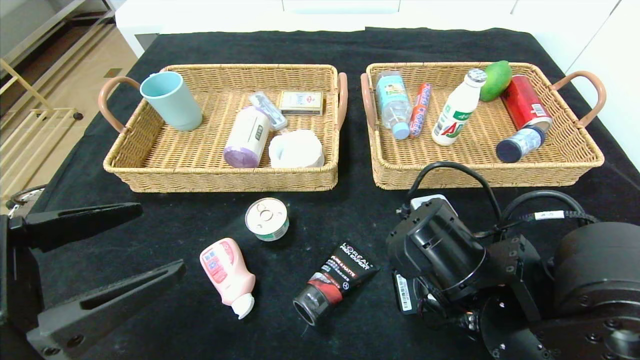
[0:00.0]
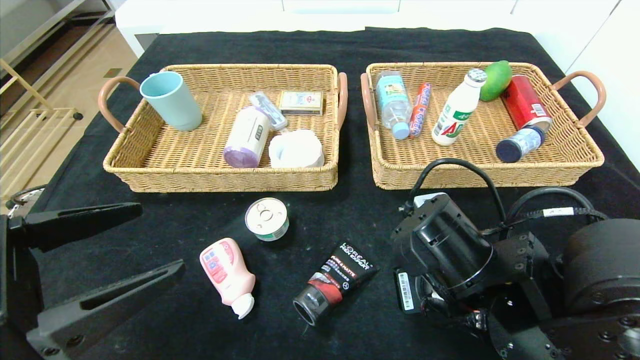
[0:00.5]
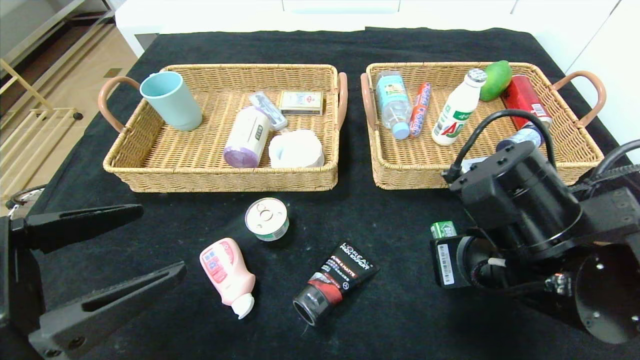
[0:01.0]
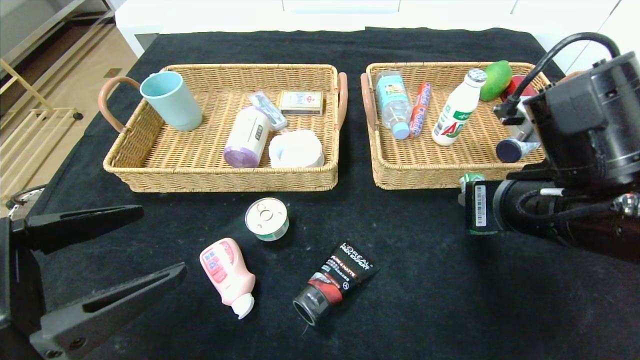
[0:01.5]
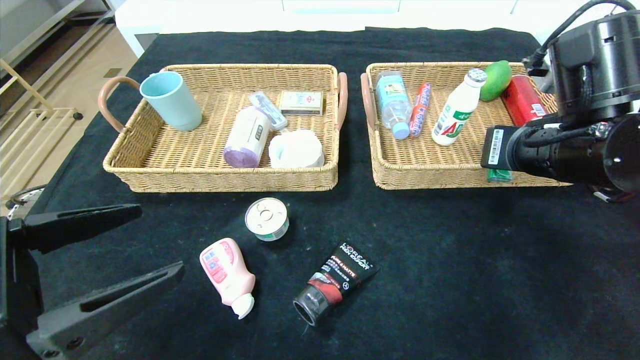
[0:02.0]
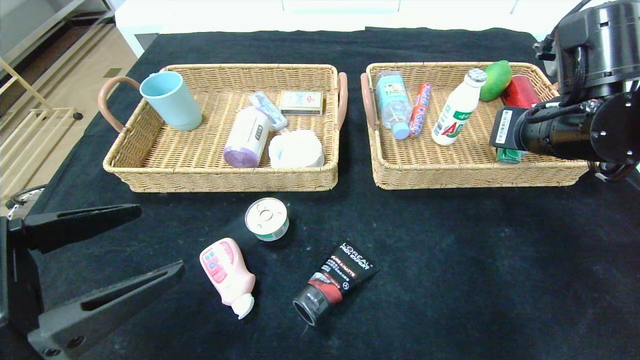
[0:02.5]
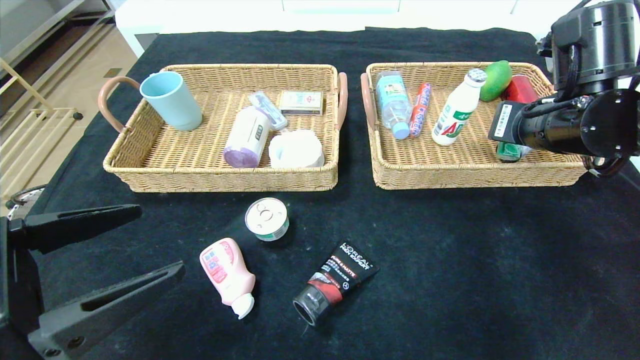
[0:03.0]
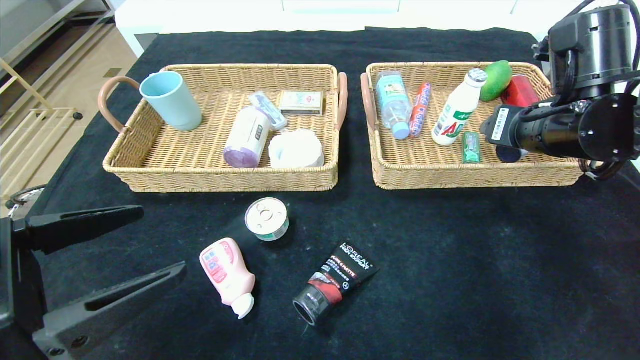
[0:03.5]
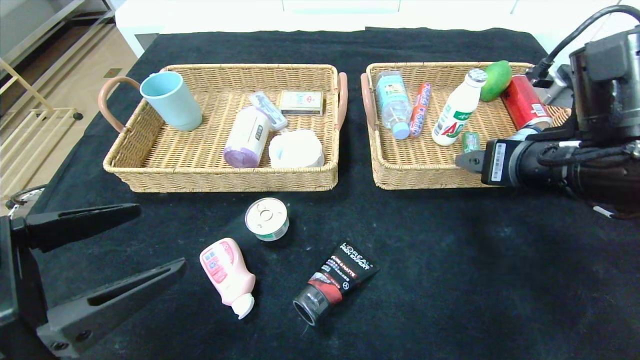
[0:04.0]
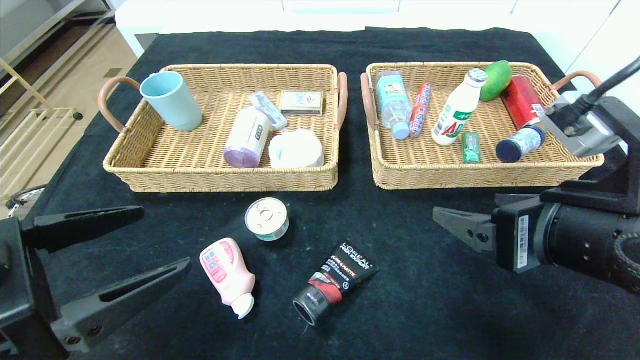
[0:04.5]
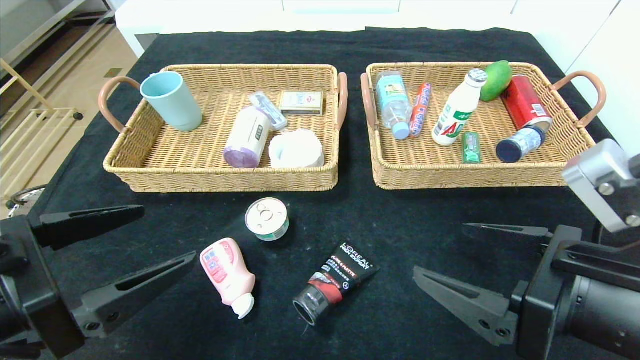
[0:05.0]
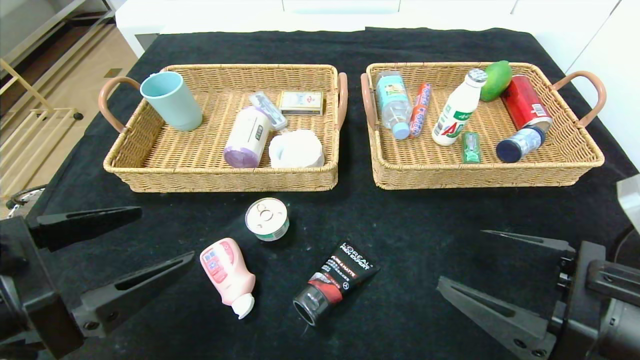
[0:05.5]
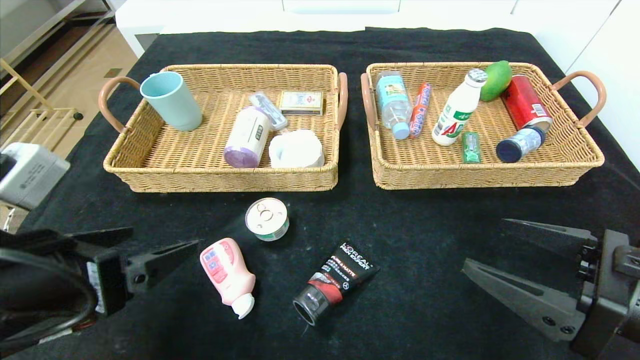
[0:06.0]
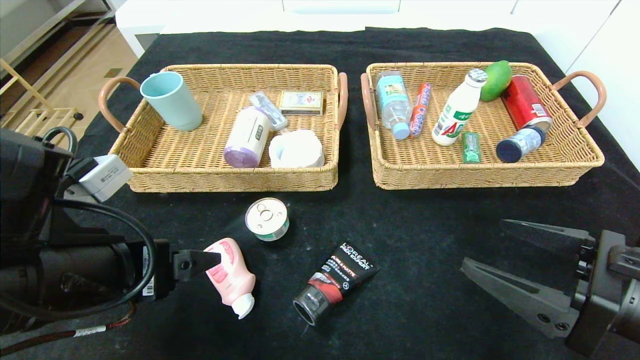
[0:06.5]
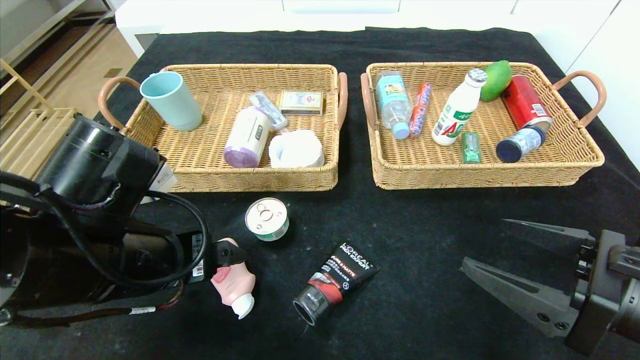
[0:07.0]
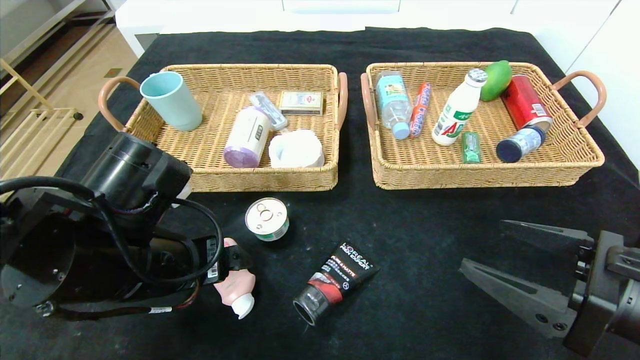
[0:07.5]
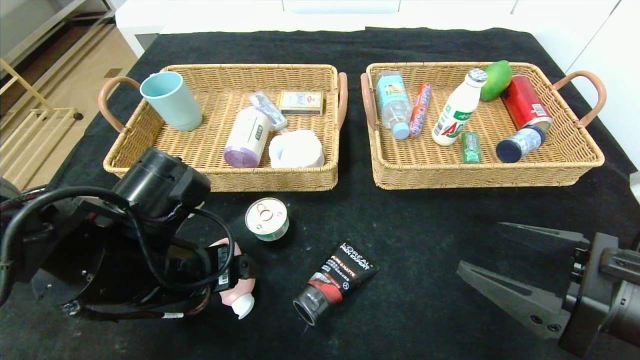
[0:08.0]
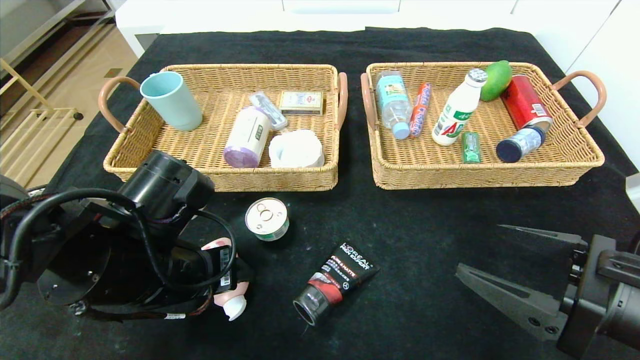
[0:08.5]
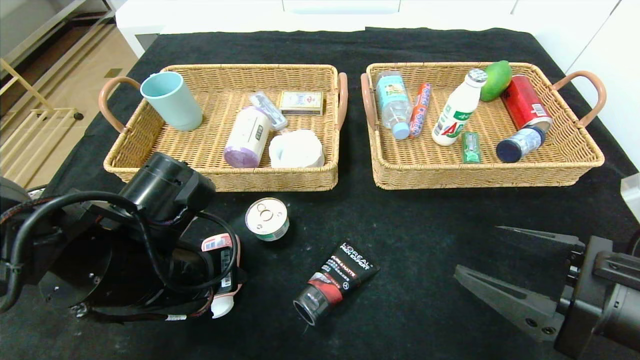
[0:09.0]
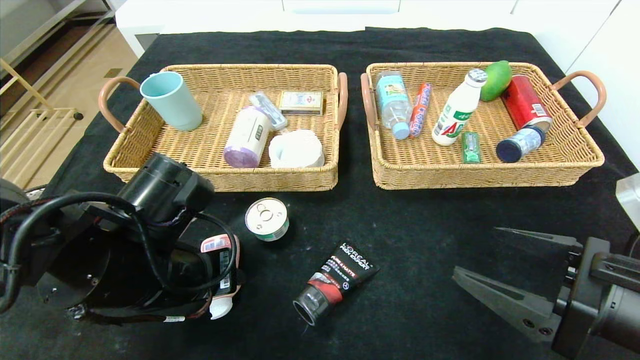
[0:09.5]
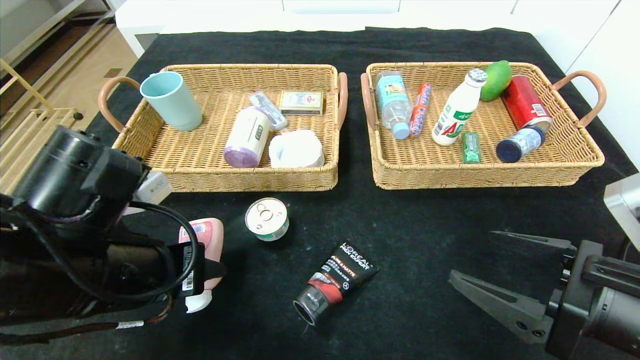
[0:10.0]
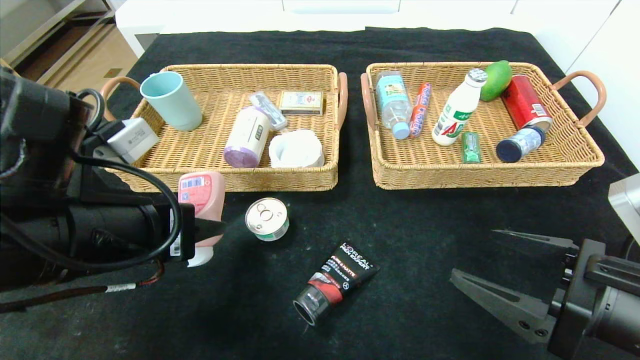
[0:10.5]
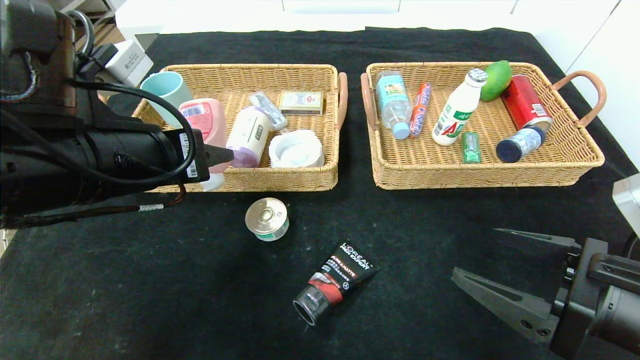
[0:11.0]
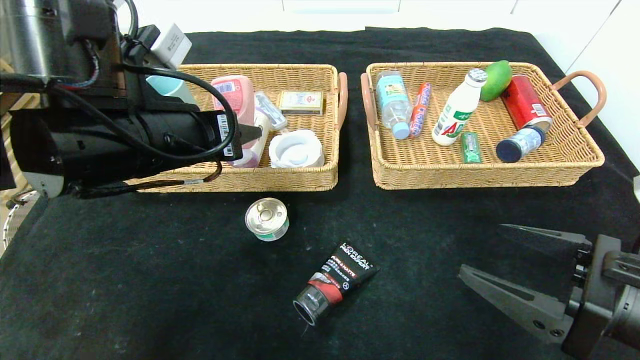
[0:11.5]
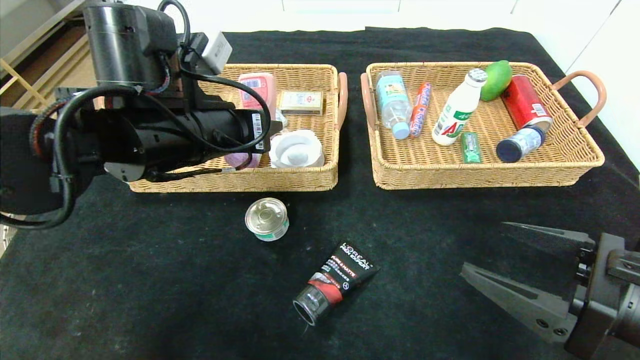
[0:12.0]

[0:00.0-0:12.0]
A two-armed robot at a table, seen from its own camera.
Step, 0:00.0 to 0:05.0: Grasp the green chewing gum and put it in the right basket.
0:00.0 to 0:02.0: The right gripper moves upward, to the right and forward, about 15 cm.
0:02.0 to 0:04.0: The right gripper opens.
0:04.0 to 0:06.0: The right gripper shifts roughly 15 cm backward and downward.
0:06.0 to 0:08.0: The left gripper moves forward and to the right, some 10 cm.
0:08.0 to 0:10.0: The left gripper closes up.
0:10.0 to 0:12.0: The left gripper heads forward and upward, covering roughly 15 cm.

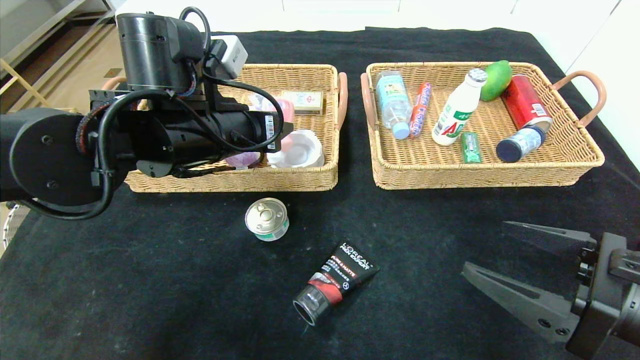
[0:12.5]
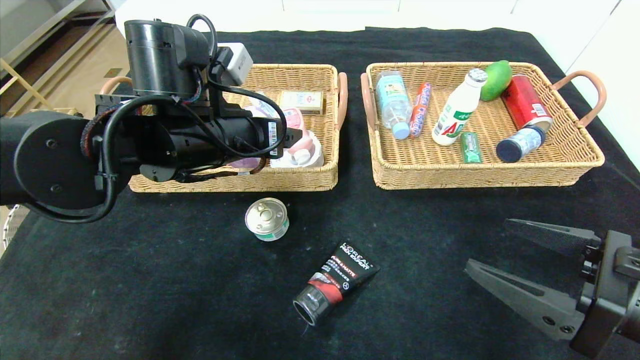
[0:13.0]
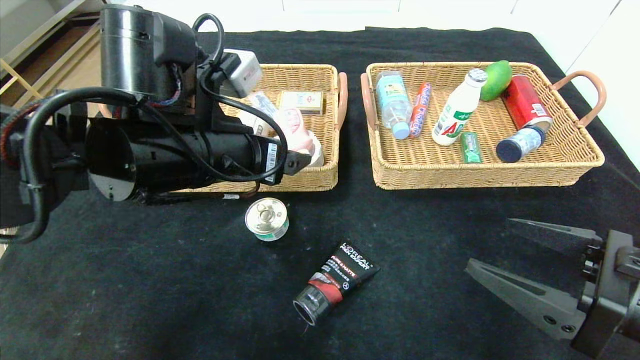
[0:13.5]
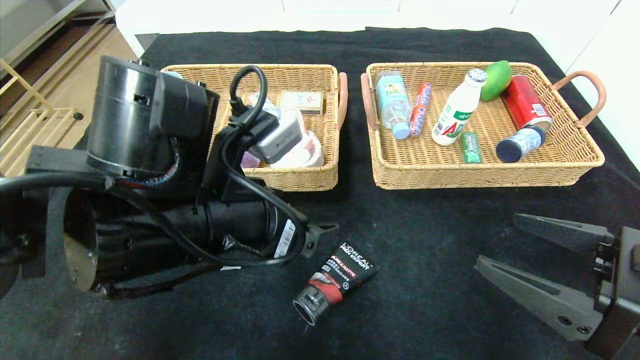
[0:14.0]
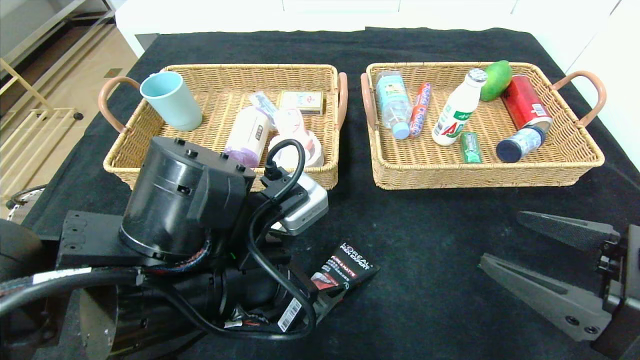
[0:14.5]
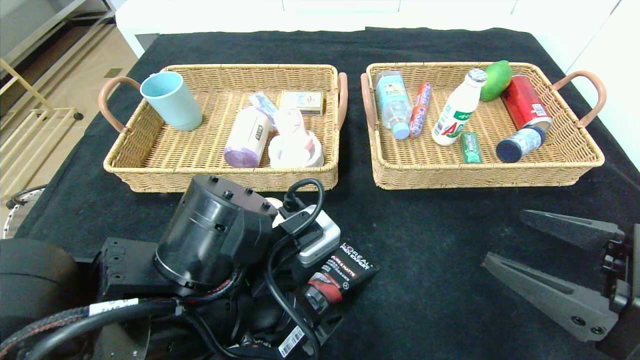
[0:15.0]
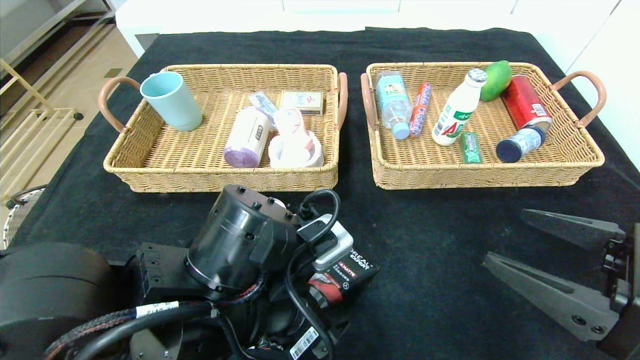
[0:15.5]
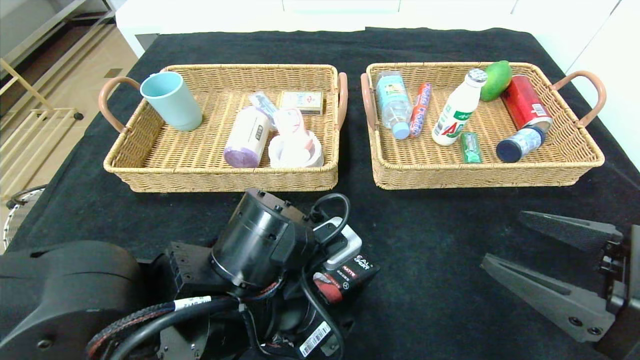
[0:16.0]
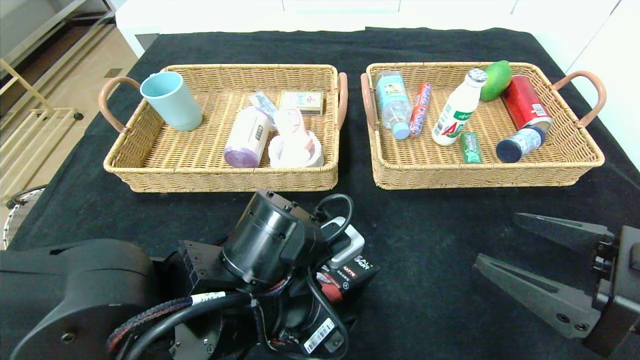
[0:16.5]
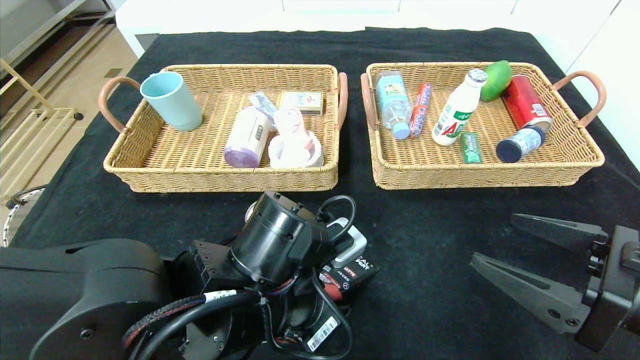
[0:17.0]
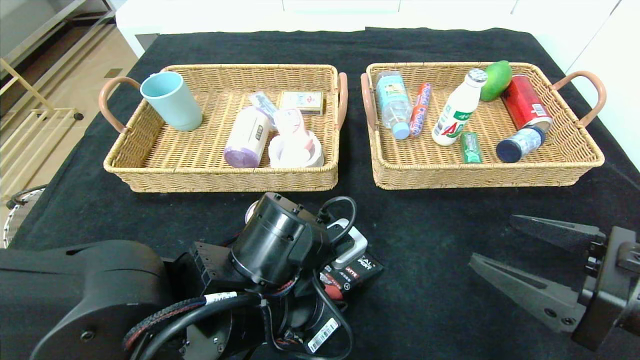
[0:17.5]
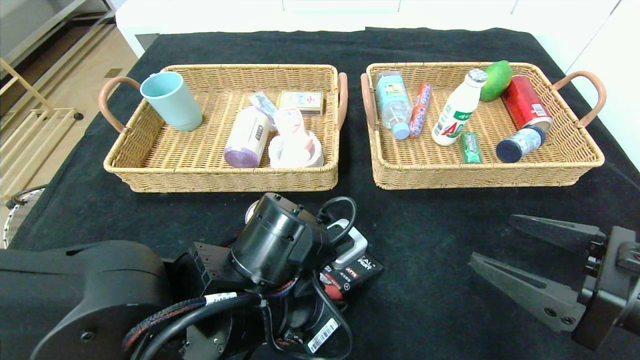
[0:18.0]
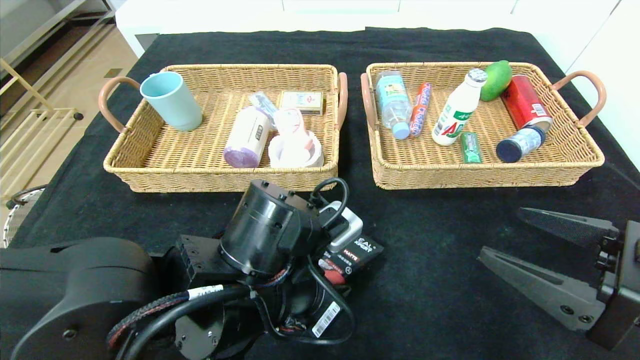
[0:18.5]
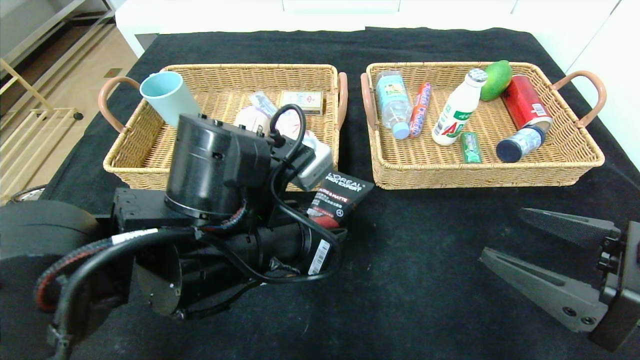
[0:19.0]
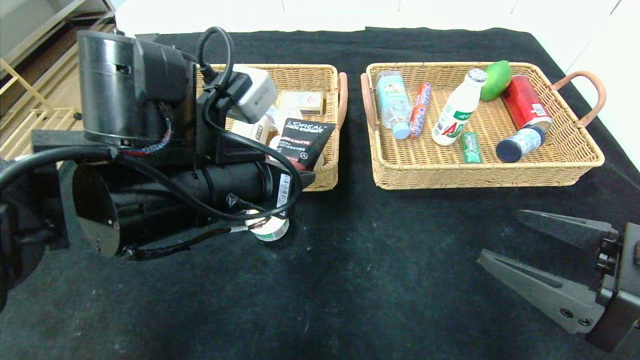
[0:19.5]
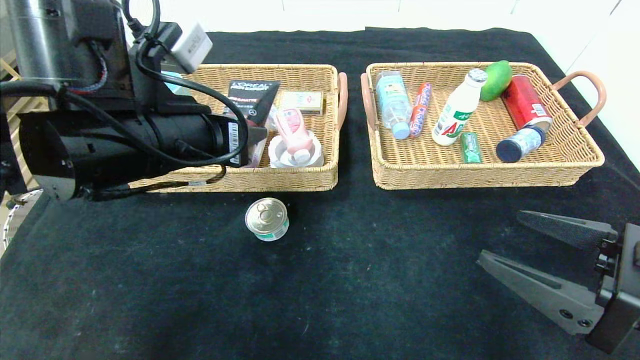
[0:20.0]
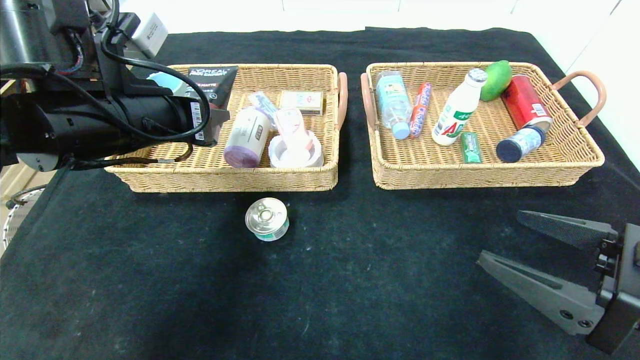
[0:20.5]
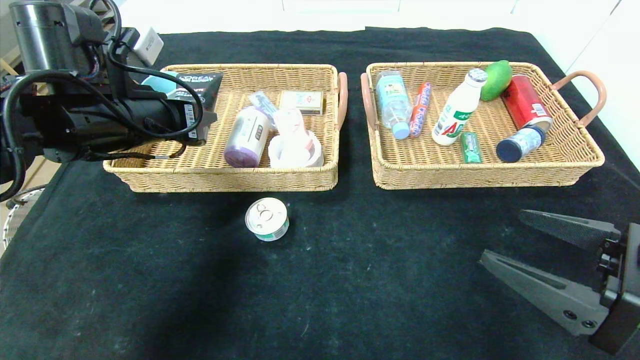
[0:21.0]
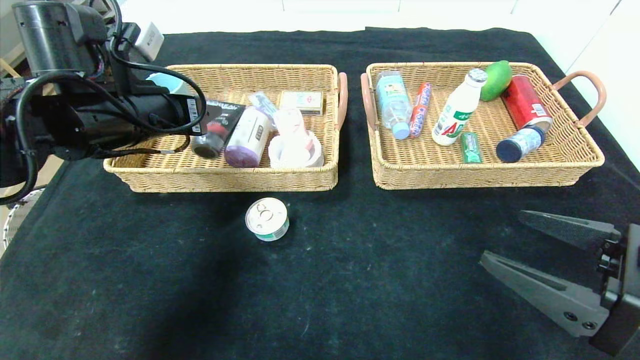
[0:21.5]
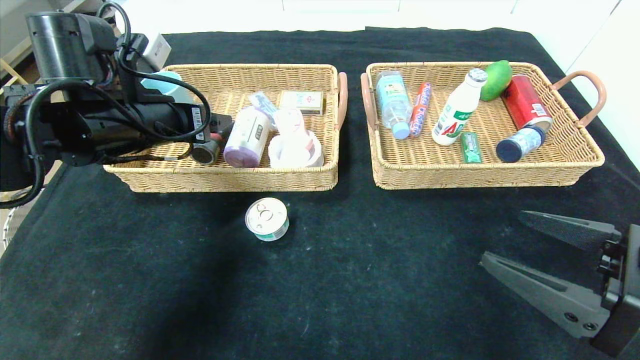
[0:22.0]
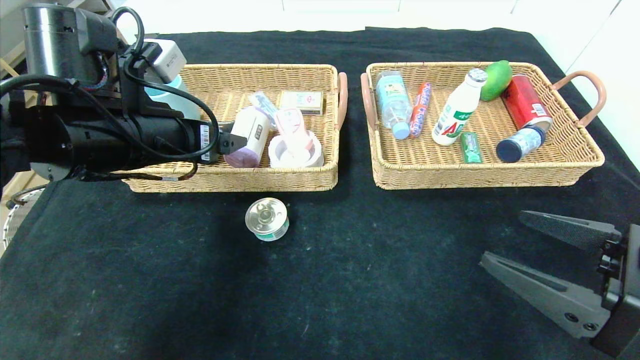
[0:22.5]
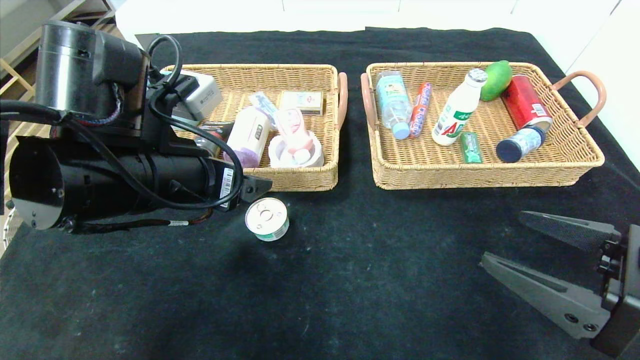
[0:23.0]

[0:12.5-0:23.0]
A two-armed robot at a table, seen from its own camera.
Step, 0:13.5 to 0:22.0: Grasp the soft cleanser and put it in the left basket.
0:12.5 to 0:14.5: The left gripper moves backward and downward, roughly 15 cm, and opens.
0:14.5 to 0:16.5: The left gripper ends up about 5 cm from where it was.
0:16.5 to 0:19.0: The left gripper shifts some 5 cm upward, and closes up.
0:19.0 to 0:21.0: The left gripper is displaced to the left, forward and upward by some 20 cm.
0:21.0 to 0:23.0: The left gripper moves backward and to the right, about 10 cm, and opens its fingers.
